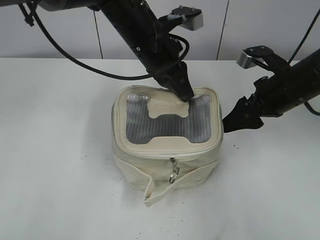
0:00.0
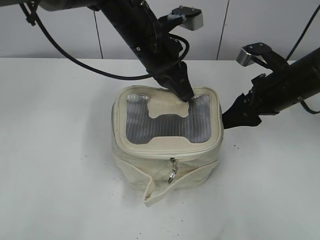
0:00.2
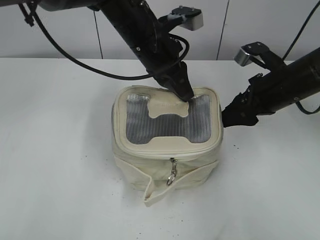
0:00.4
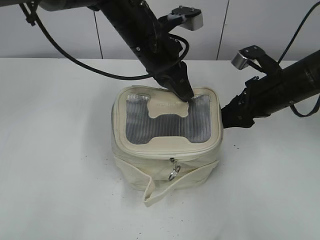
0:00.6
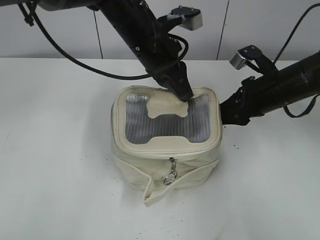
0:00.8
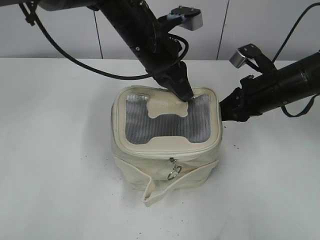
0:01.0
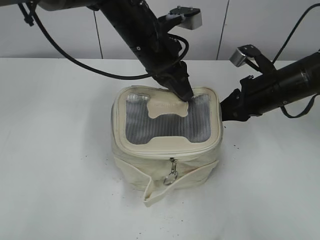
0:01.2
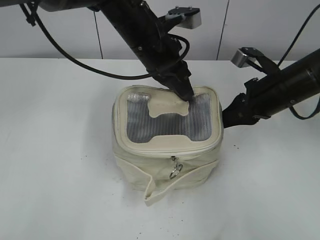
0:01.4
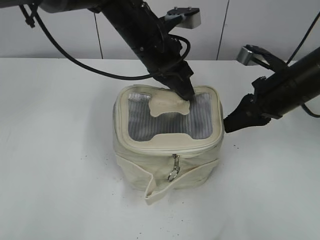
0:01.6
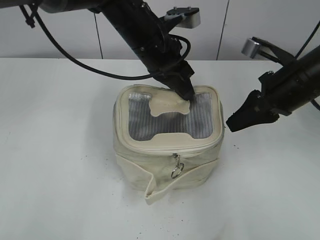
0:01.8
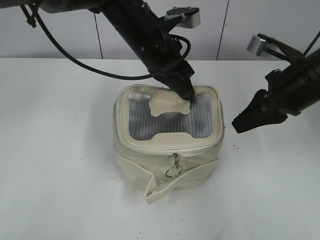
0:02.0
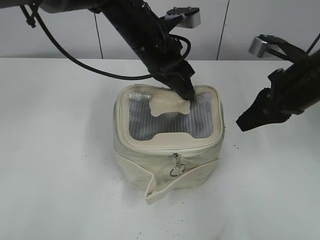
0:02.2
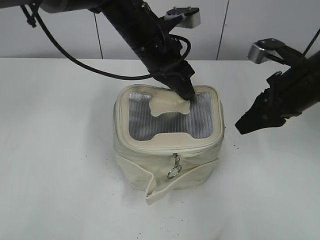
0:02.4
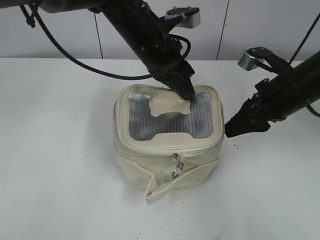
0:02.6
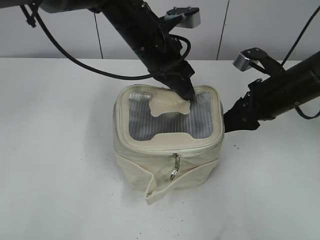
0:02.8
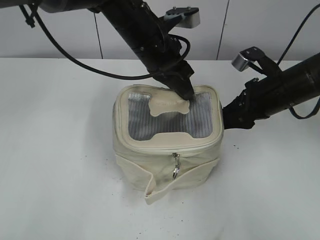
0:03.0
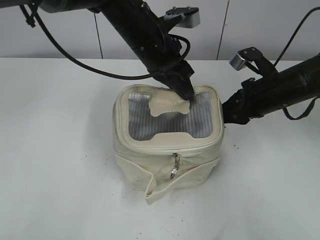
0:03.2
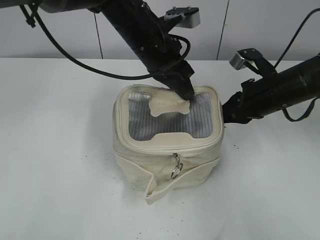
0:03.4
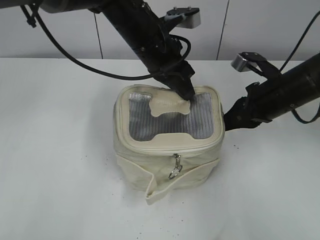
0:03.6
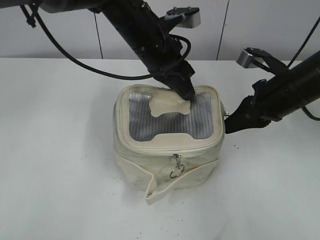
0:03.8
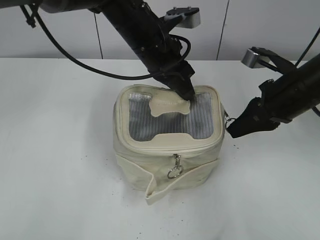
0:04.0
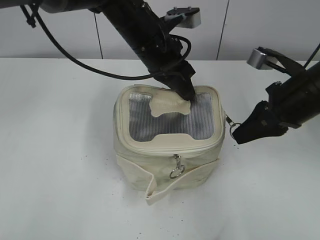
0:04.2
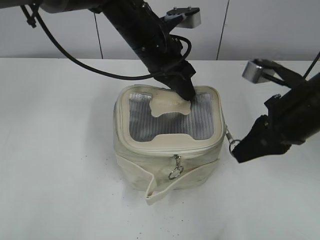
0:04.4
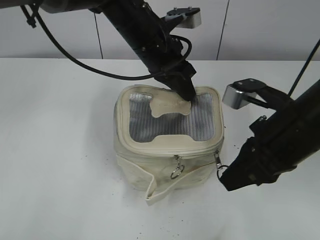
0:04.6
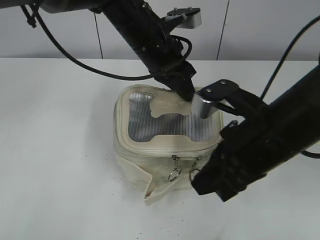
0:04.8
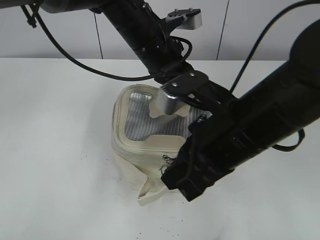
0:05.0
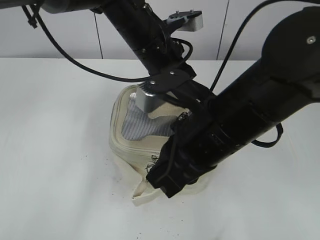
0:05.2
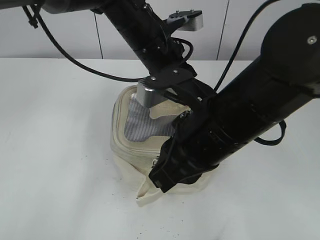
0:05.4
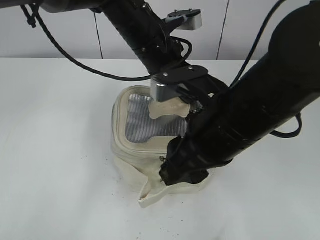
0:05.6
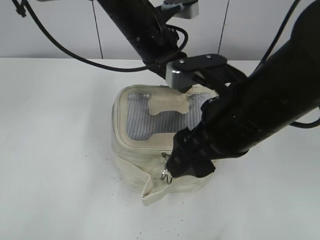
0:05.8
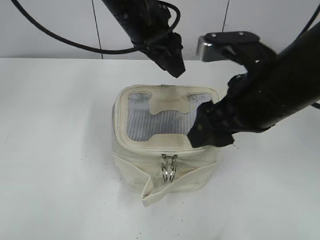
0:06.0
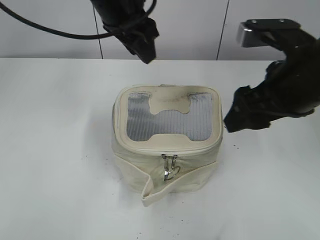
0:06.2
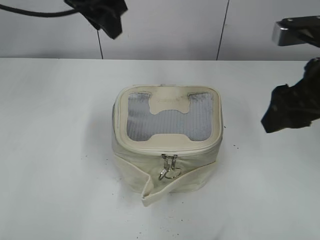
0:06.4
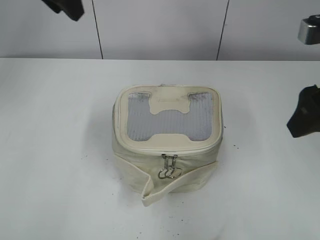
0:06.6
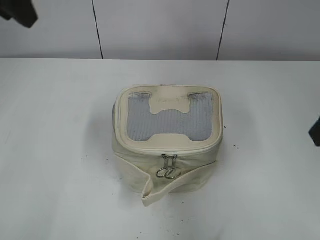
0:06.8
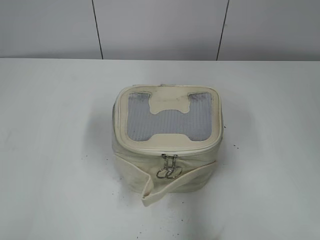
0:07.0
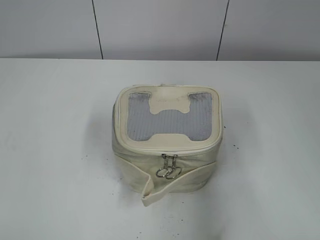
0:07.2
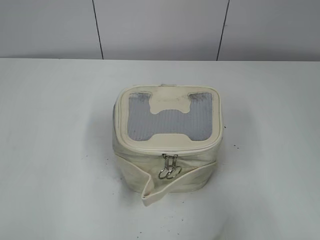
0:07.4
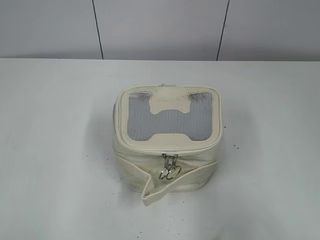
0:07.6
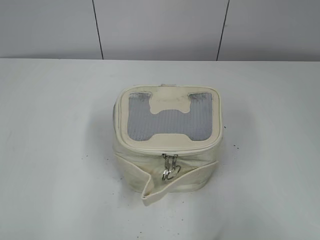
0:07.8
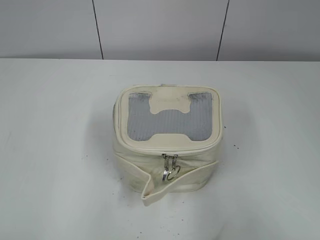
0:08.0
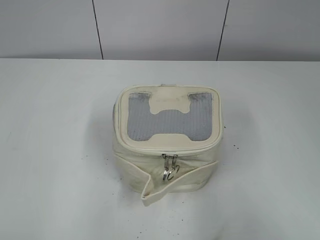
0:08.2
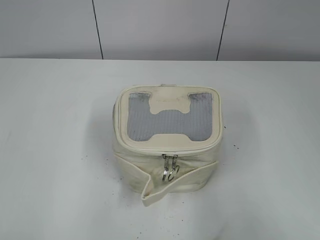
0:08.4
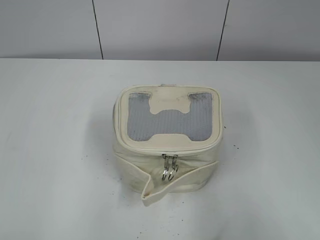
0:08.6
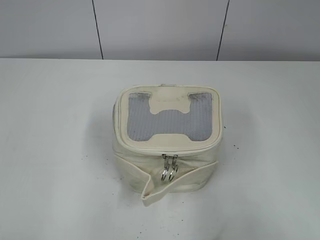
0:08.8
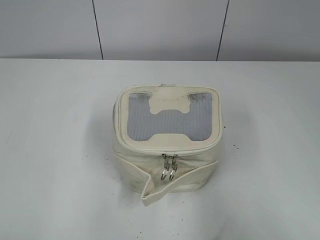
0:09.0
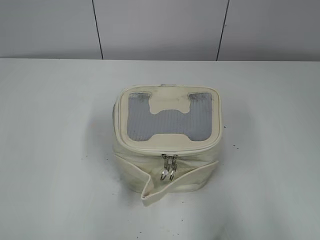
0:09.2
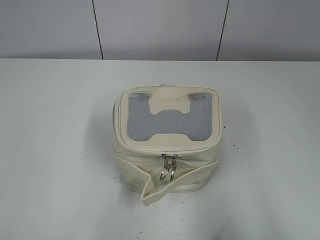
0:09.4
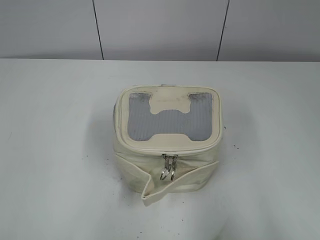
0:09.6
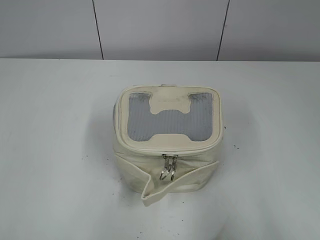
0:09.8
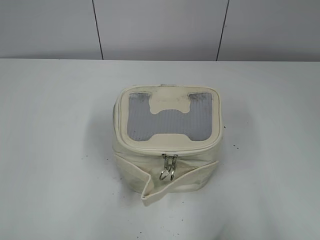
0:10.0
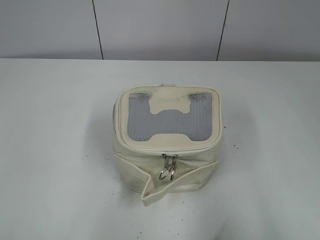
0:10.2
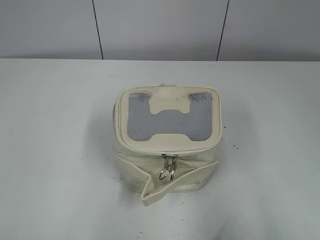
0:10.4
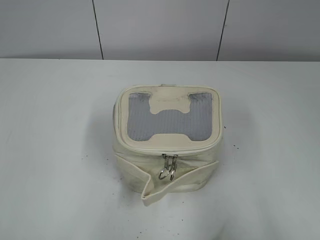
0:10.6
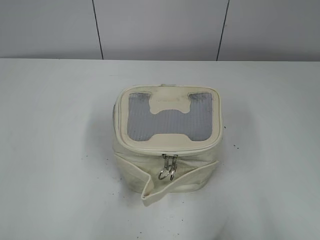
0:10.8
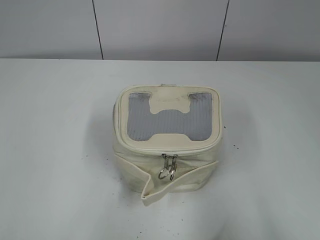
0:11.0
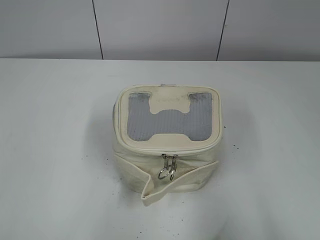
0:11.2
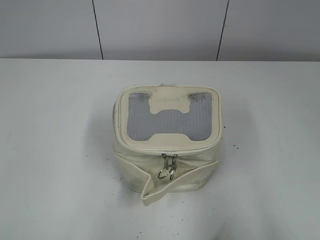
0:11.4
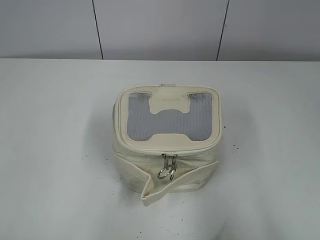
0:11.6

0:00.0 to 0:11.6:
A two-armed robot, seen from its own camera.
Step, 0:00.0 to 0:05.8: Zip up the bag with your right hand.
0:00.0 to 0:01.4: The right gripper closes.
0:01.4 to 0:02.8: The right gripper opens up.
0:02.8 to 0:04.4: The right gripper moves backward, approximately 5 cm, and closes up.
0:04.4 to 0:05.8: The right gripper shifts roughly 10 cm to the left and backward, and opens its fingers.
0:05.8 to 0:07.2: The left gripper goes some 30 cm to the left and backward. The right gripper moves to the right and backward, some 20 cm.
0:07.2 to 0:08.8: The right gripper heads backward, covering some 10 cm. The left gripper moves backward and downward, approximately 15 cm.
0:10.2 to 0:11.6: Both grippers stay about where they are.
